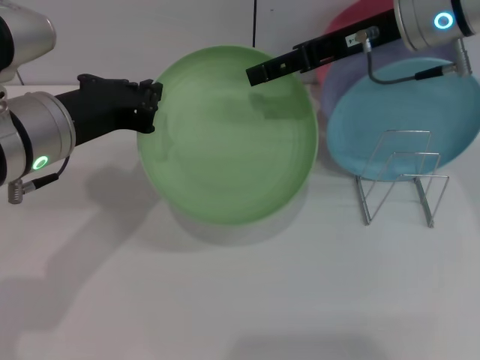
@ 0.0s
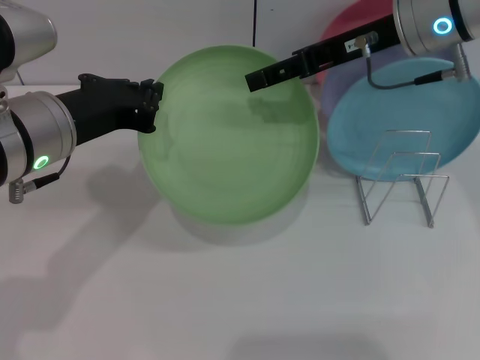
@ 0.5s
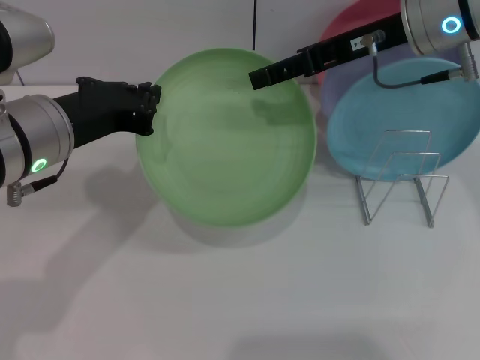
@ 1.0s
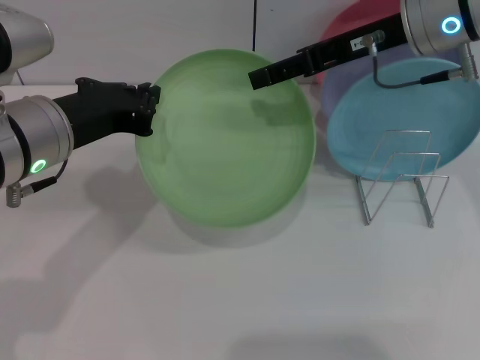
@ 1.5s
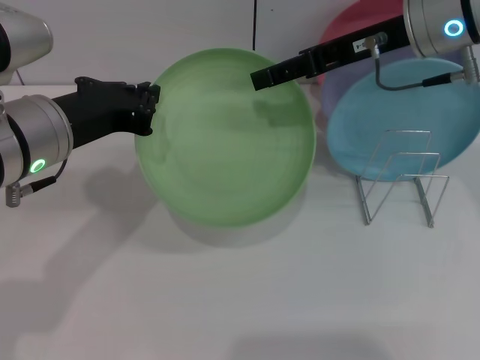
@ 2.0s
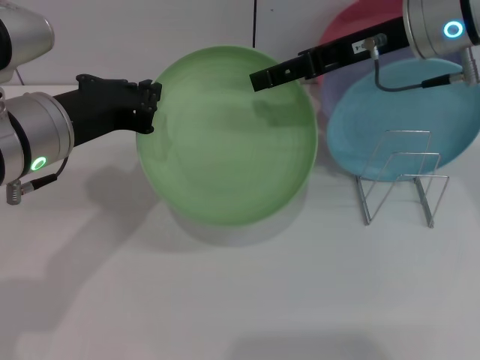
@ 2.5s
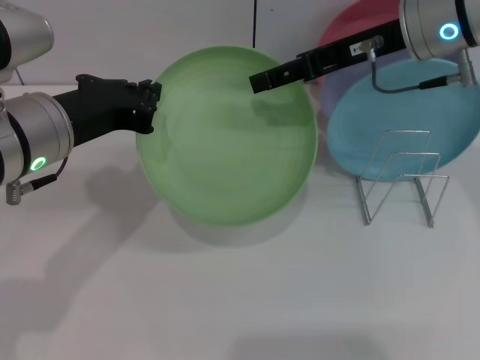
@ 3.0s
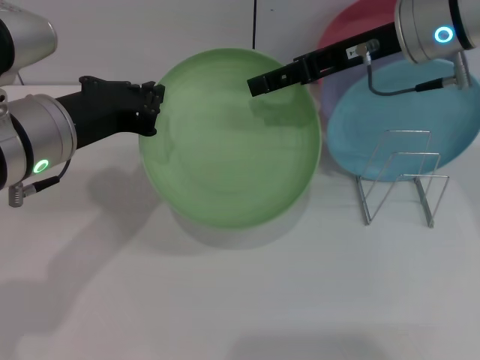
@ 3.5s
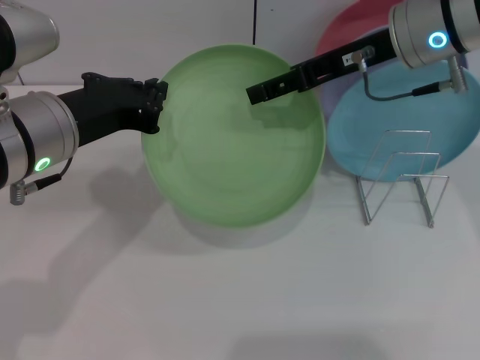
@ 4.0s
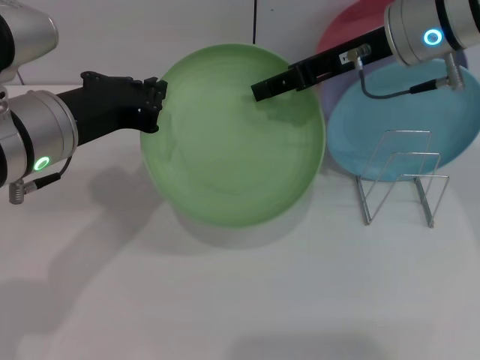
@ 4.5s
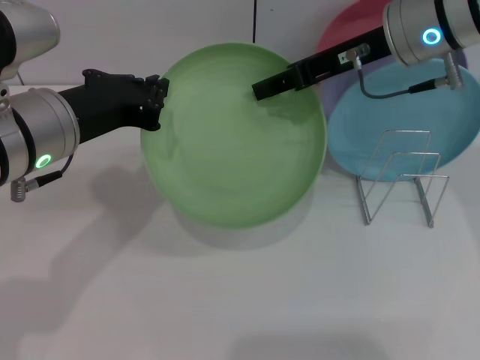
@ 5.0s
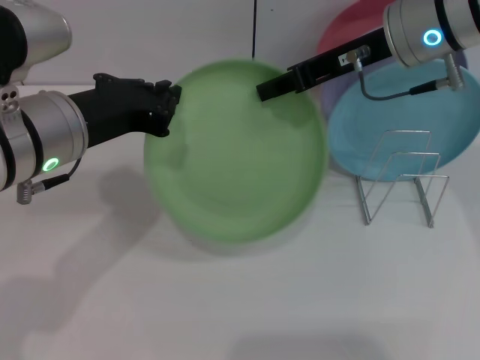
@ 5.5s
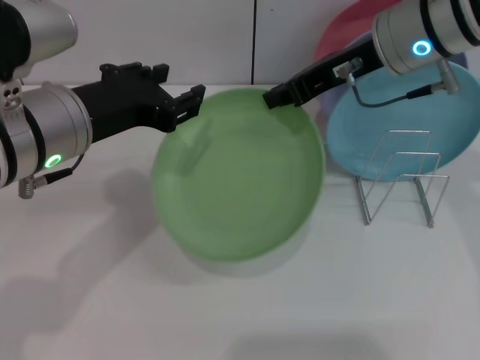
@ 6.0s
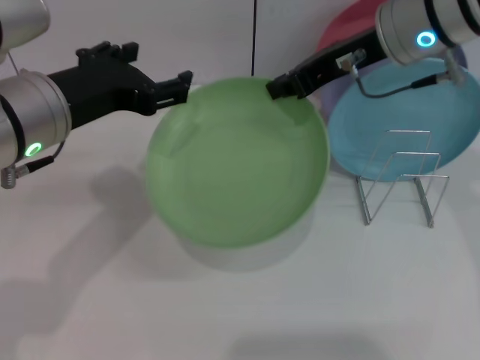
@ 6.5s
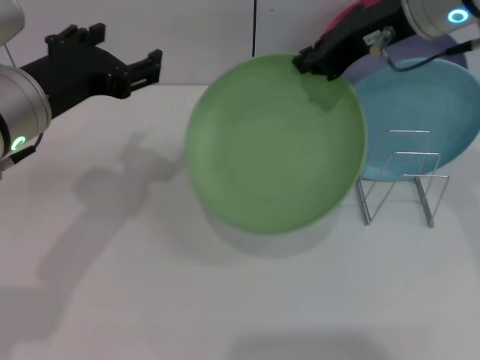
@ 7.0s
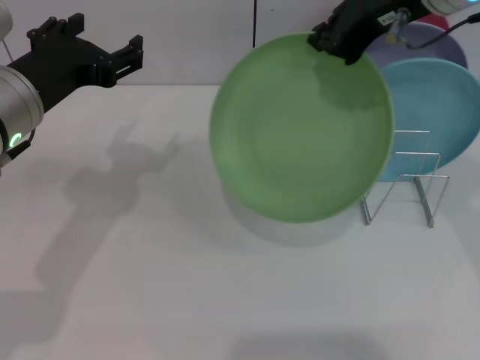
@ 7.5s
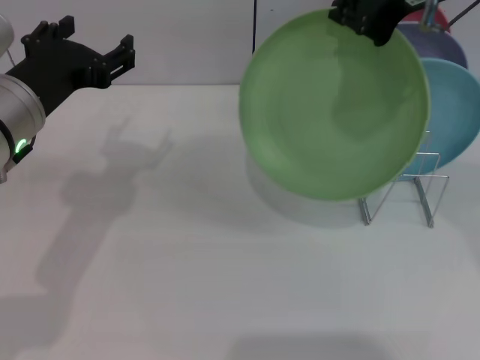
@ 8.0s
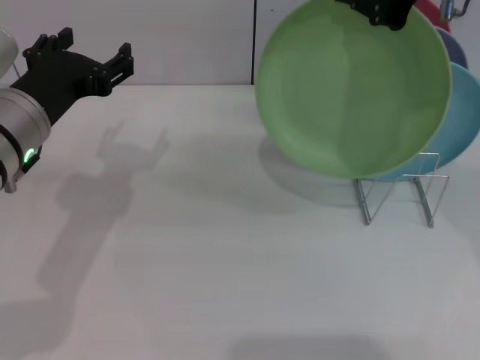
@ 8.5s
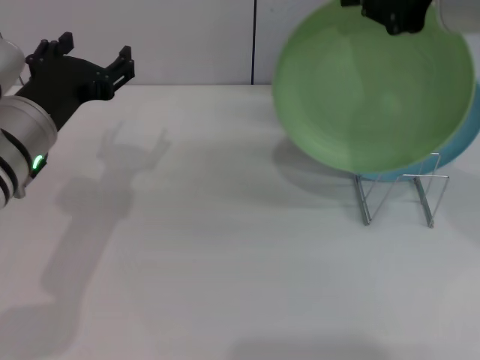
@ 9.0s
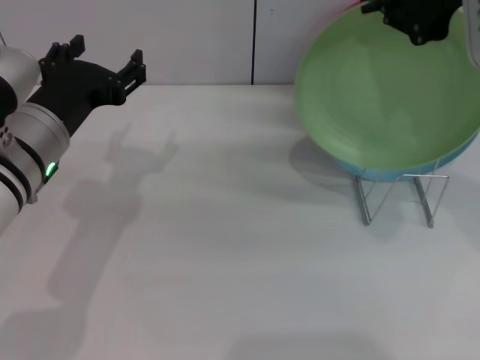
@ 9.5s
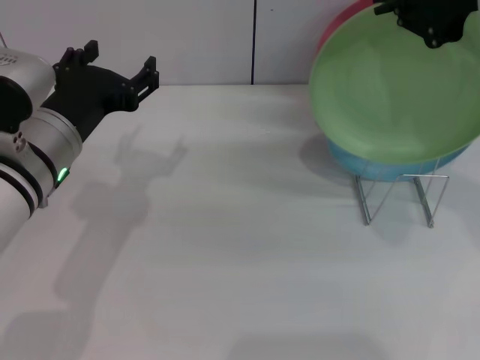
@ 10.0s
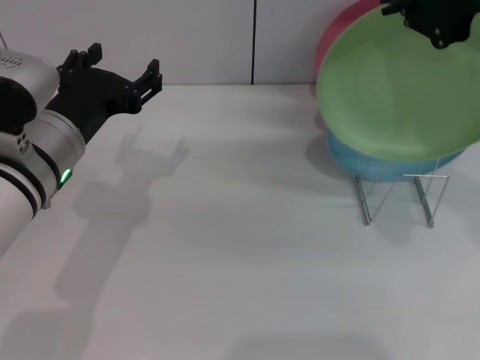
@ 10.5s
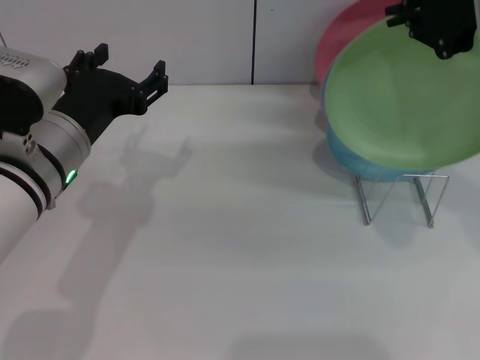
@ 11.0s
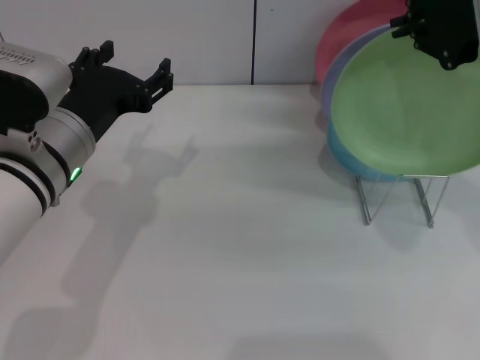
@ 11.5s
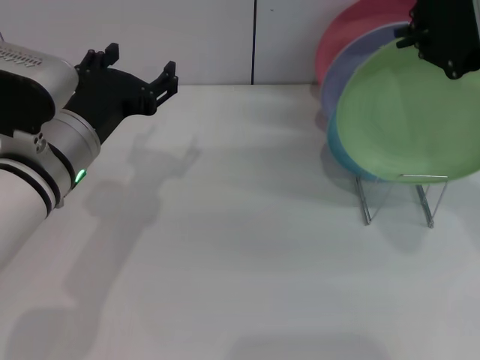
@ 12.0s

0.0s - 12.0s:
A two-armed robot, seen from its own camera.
Task of the whole recording: Grip the plate with one hand, pass it to the other, then set it on the shelf.
Step, 0.0s - 6.5s: Pass the plate from the left gripper to the right gripper.
0.0s - 4.0s: Neither gripper changes place.
4.0s - 6.0s: The right gripper closes its fingers. Meanwhile the left gripper opens up.
6.0s - 8.0s: The right gripper is displaced upward by approximately 10 cm. Meanwhile the left gripper opens its fingers.
10.0s - 12.0s: There are only small adjustments of the grippers.

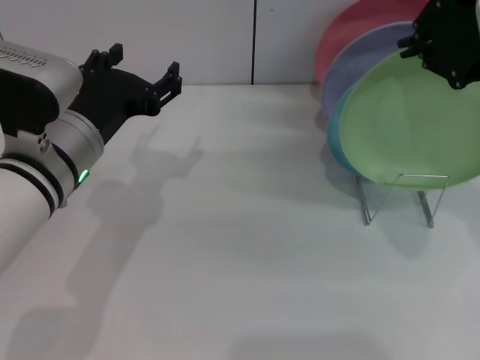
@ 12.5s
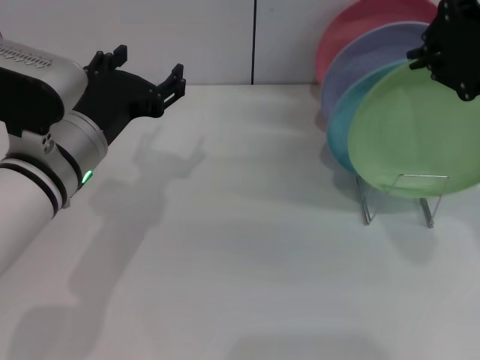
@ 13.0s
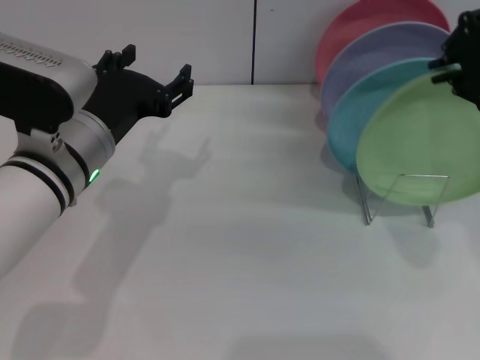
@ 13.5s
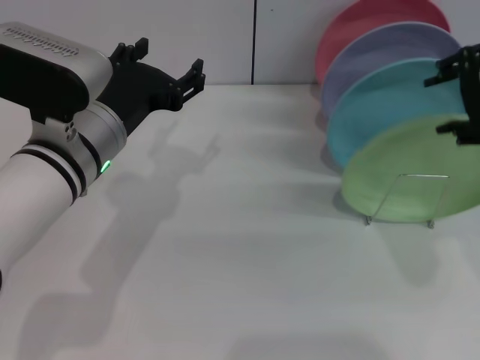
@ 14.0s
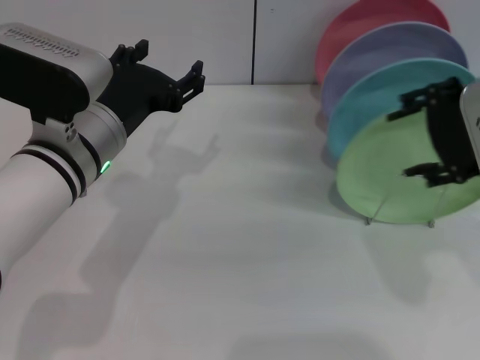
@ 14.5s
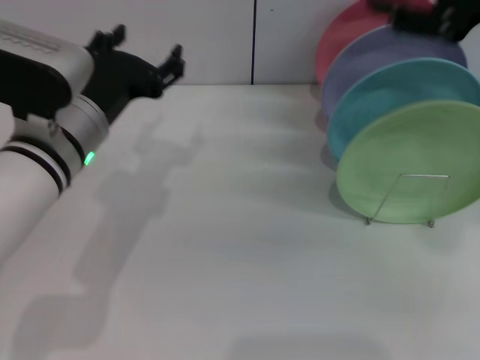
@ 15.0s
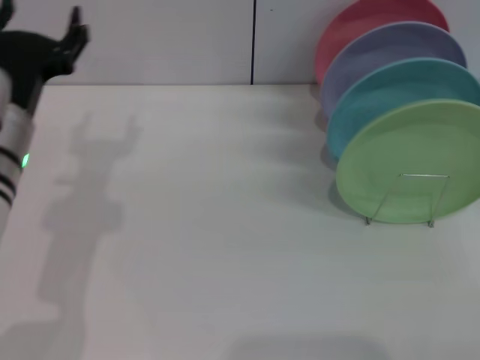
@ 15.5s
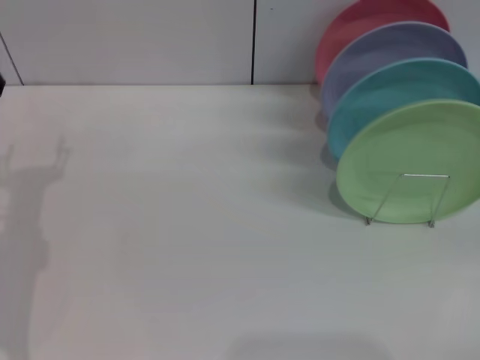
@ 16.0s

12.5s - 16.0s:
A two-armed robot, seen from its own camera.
Task of the whole recording: Grip the plate with one hand, pass it to the other, then set it on the shelf.
12.5s - 14.5s: The right gripper shifts by some 5 cm, and opens up.
14.5s - 16.0s: The right gripper is displaced to the right, downward and backward by approximately 30 cm. The left gripper shifts roughly 15 cm to the left and downward.
